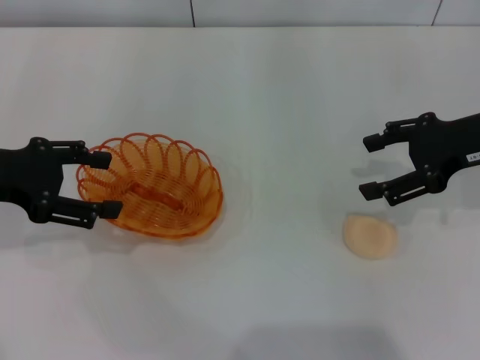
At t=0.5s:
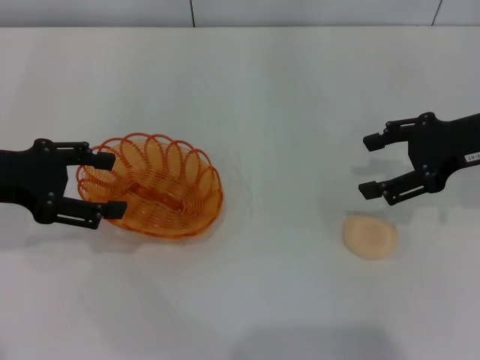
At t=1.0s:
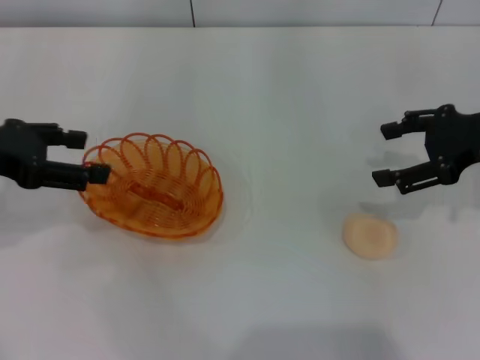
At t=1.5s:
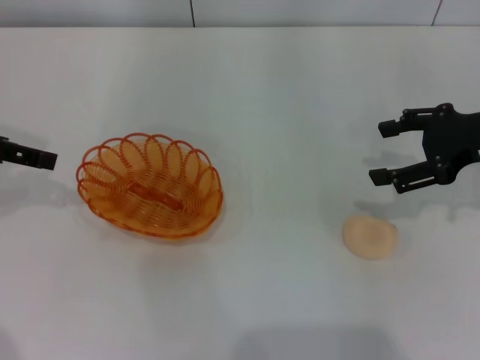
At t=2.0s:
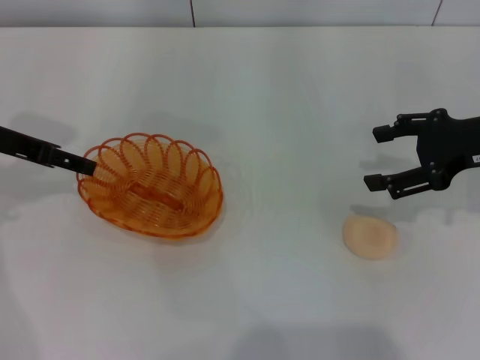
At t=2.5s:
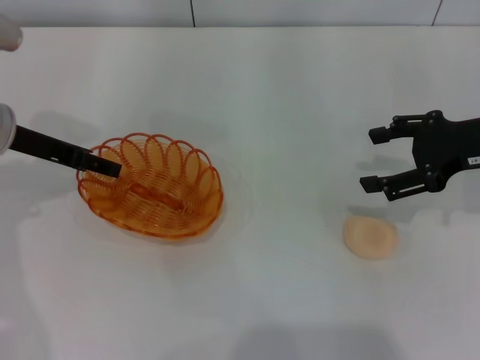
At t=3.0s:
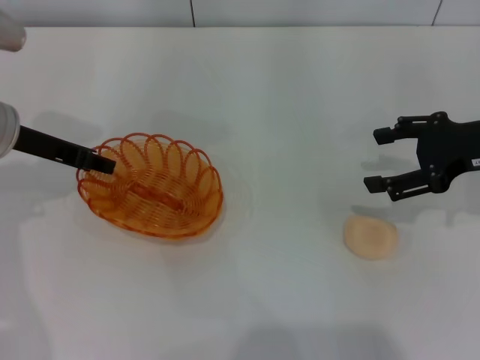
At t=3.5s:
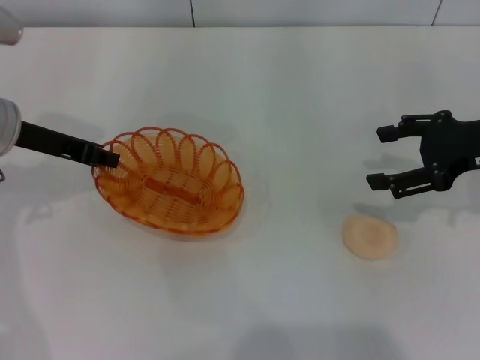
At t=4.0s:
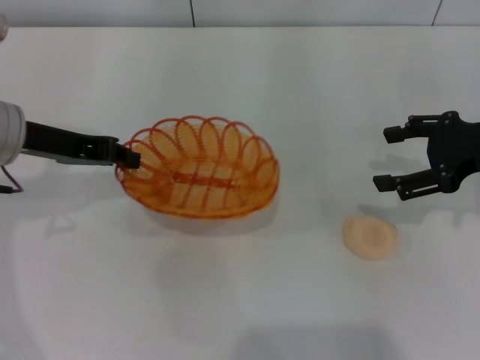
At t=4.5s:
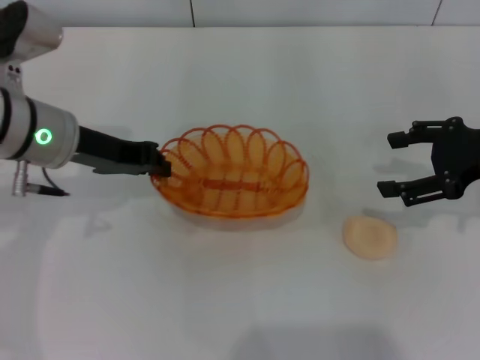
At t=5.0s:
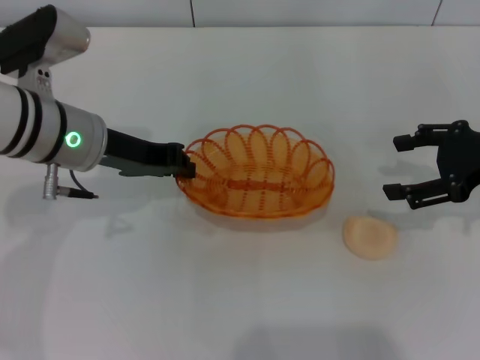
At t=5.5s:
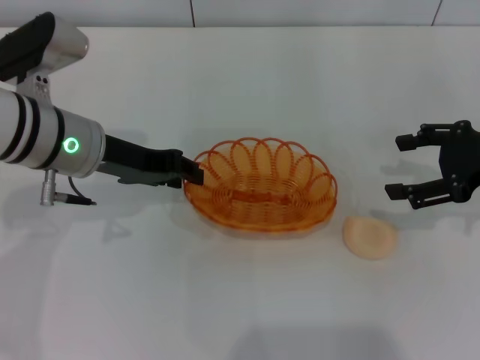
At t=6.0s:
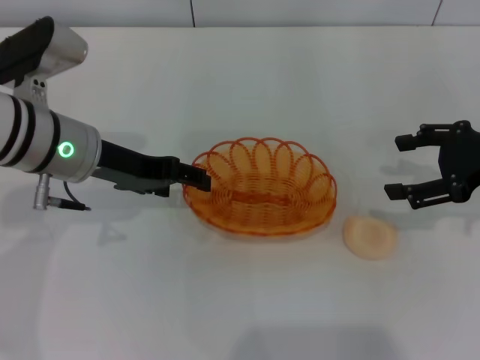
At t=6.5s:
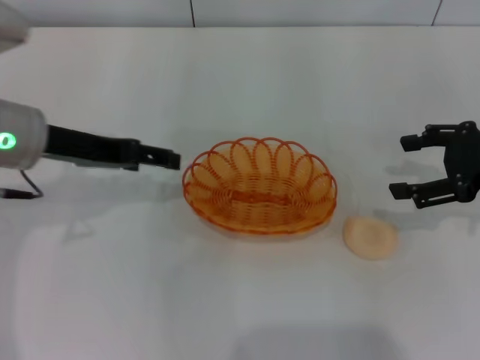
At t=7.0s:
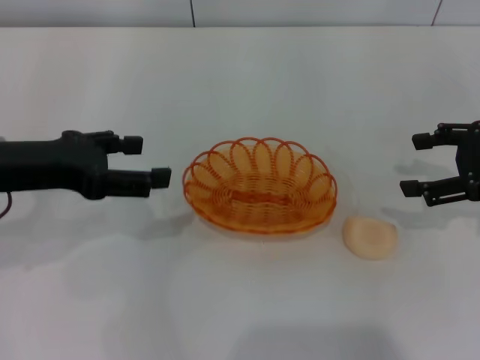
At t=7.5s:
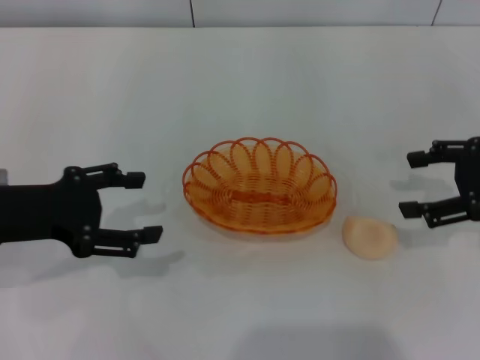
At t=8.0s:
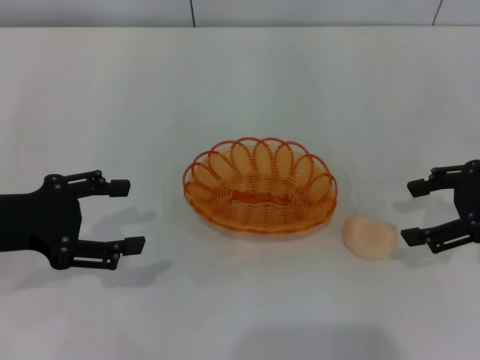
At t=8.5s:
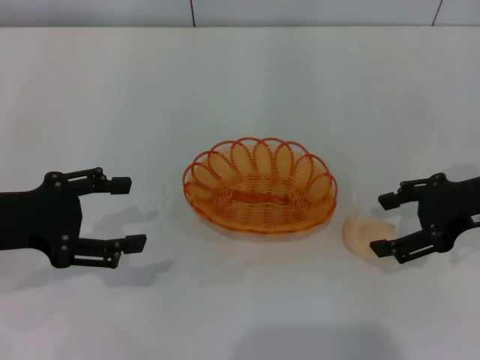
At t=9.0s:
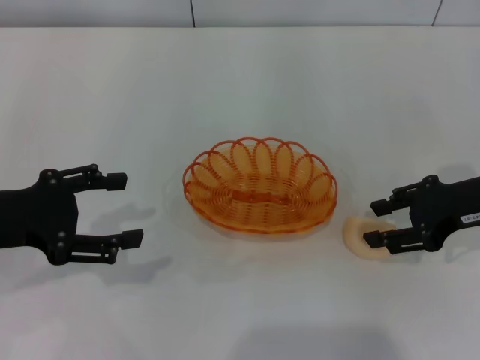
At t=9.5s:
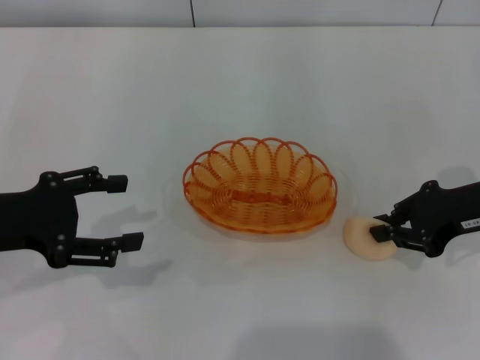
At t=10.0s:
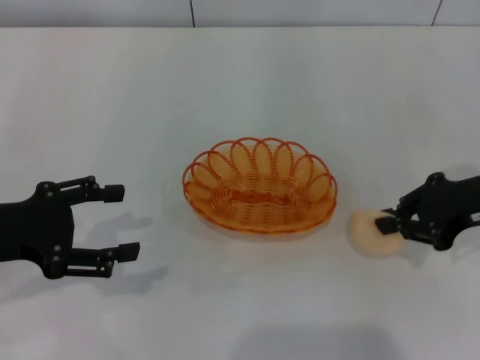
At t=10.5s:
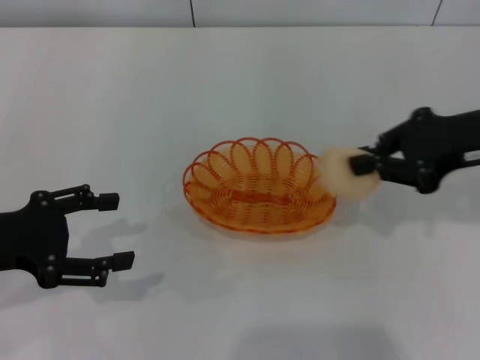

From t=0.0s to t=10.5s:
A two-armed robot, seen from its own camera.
Step, from t=0.0s to t=4.5s: Pick up the basket with the left gripper.
Step, from t=5.0s to t=7.0s: Place the basket in the center of view with the left gripper.
Step, from t=7.5s to t=10.0s: Pick up the egg yolk pastry with the right gripper.
From t=0.0s to t=2.0s: The left gripper travels forward by some 5 cm.
From t=2.0s to t=4.0s: The left gripper closes its fingers.
From t=4.0s to t=6.5s: The left gripper opens up.
From t=6.5s to t=8.5s: The left gripper shifts some 10 cm backward and to the left.
From t=8.5s to t=10.5s: The right gripper heads upward, covering about 5 cm, and closes.

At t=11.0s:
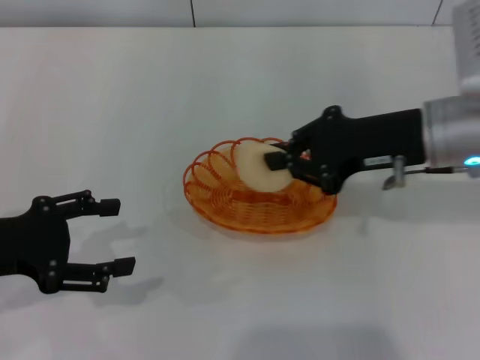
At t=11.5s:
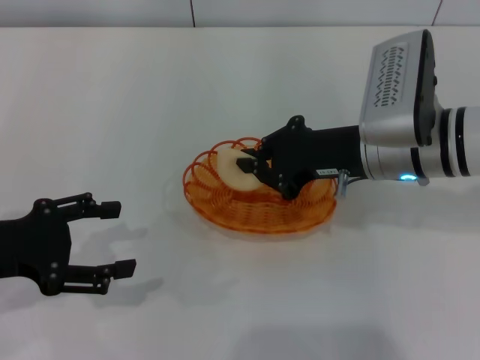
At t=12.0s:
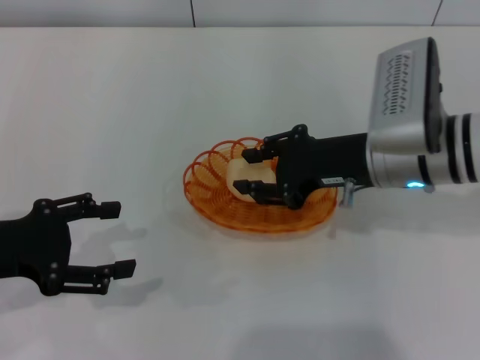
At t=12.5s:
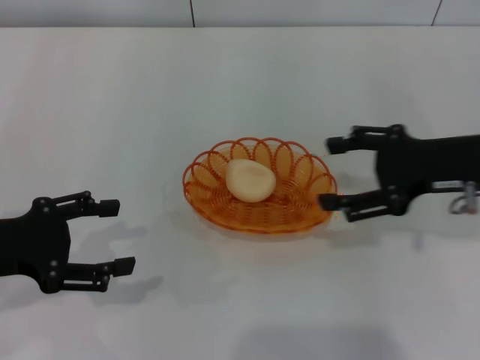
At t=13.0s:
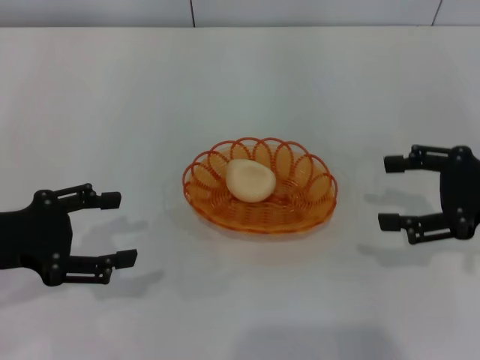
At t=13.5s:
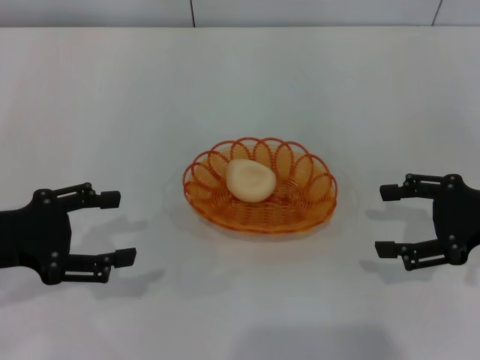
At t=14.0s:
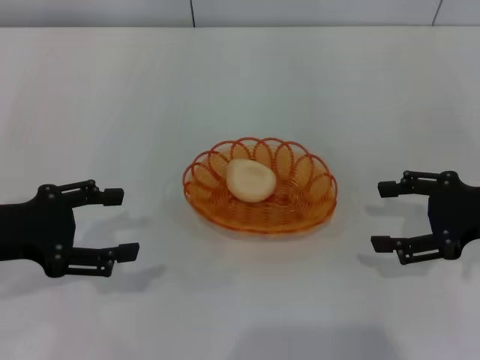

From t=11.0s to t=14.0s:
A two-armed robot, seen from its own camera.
Step, from t=11.0s to t=12.0s: Place the egg yolk pastry into the basket with the right gripper.
From t=11.0s to t=12.5s: The right gripper goes approximately 5 cm to the right, and opens up.
From t=12.5s to t=14.0s: The right gripper moves to the right, approximately 5 cm.

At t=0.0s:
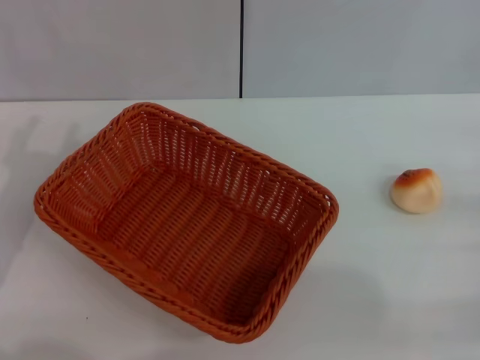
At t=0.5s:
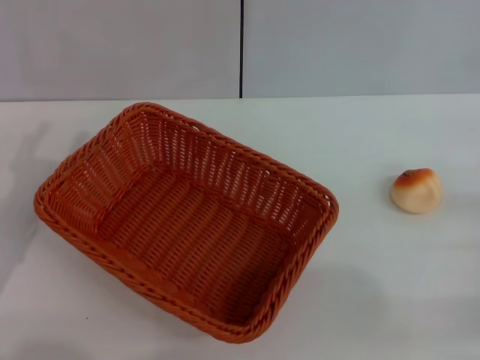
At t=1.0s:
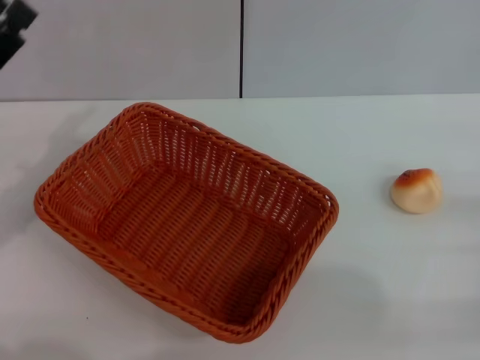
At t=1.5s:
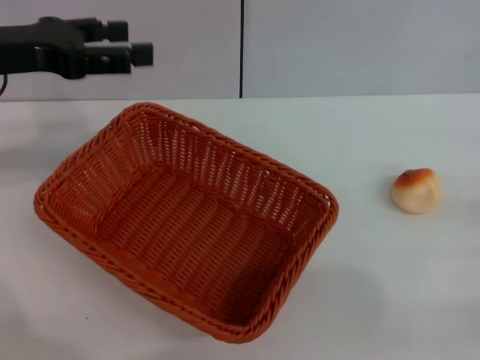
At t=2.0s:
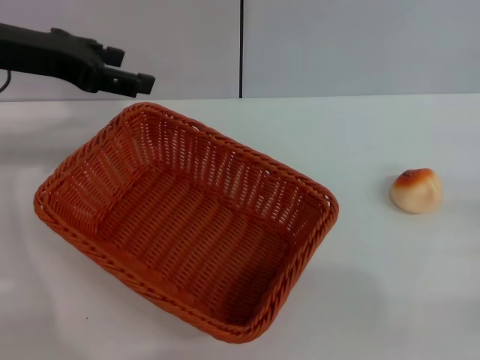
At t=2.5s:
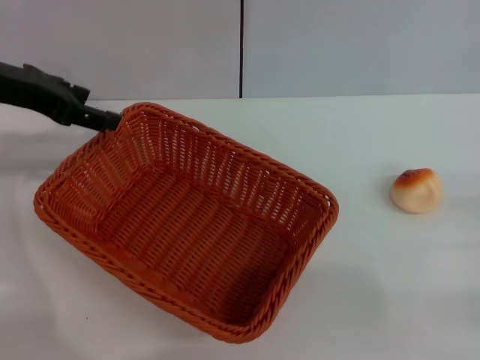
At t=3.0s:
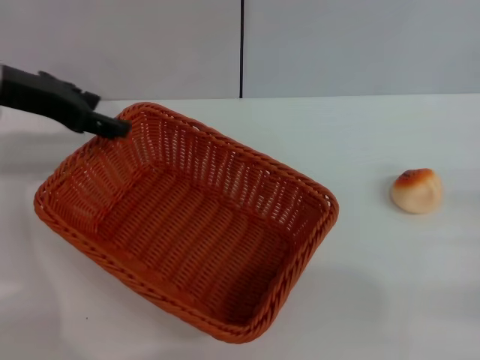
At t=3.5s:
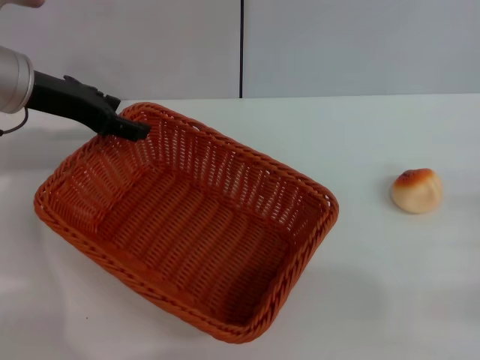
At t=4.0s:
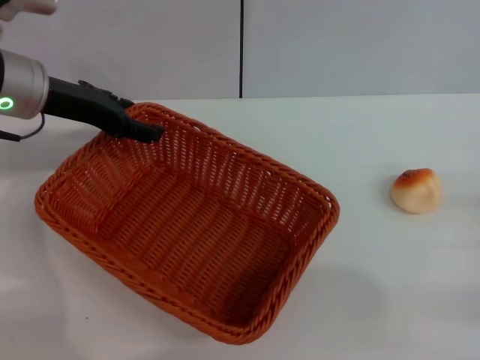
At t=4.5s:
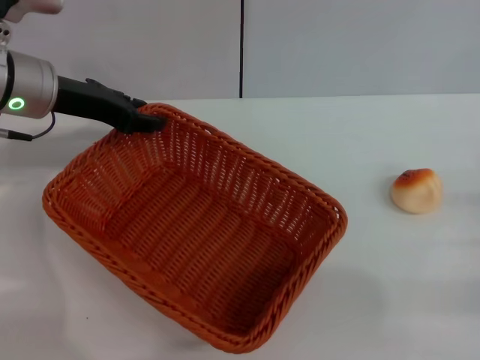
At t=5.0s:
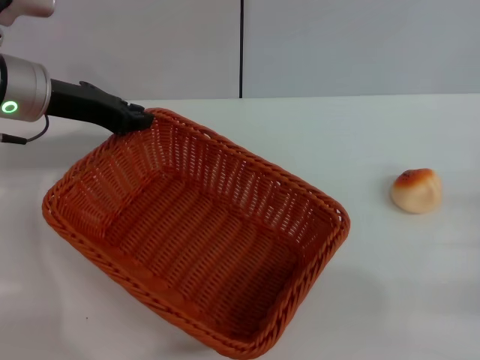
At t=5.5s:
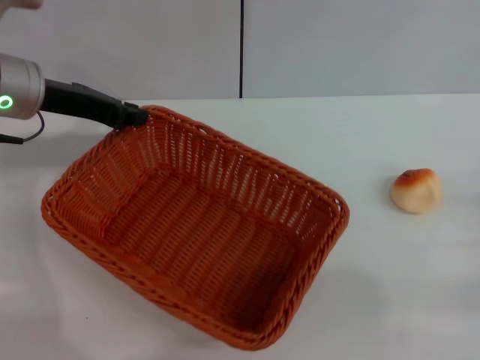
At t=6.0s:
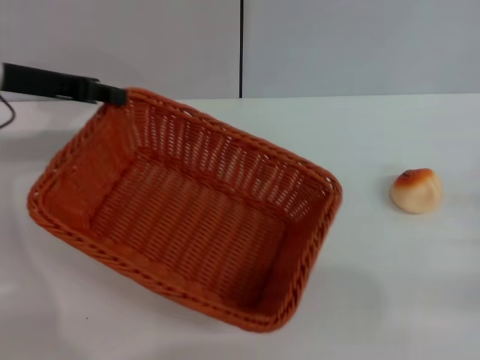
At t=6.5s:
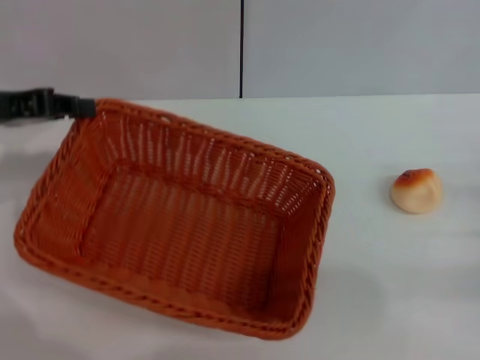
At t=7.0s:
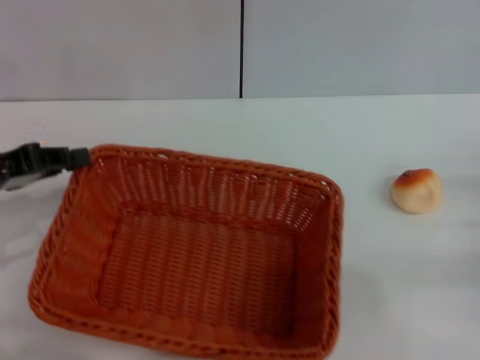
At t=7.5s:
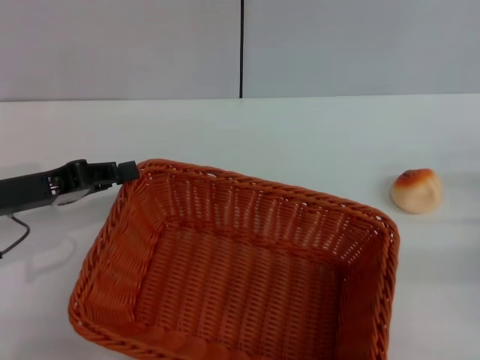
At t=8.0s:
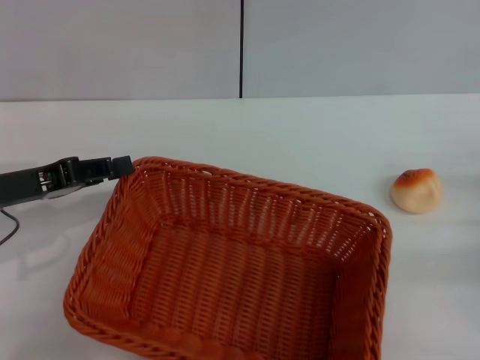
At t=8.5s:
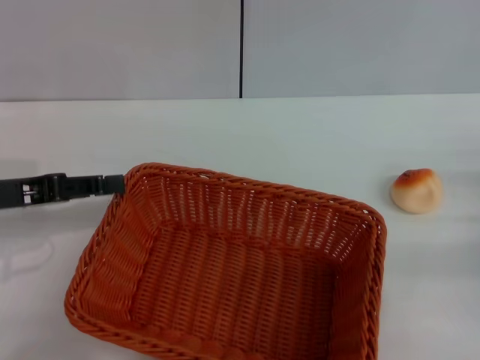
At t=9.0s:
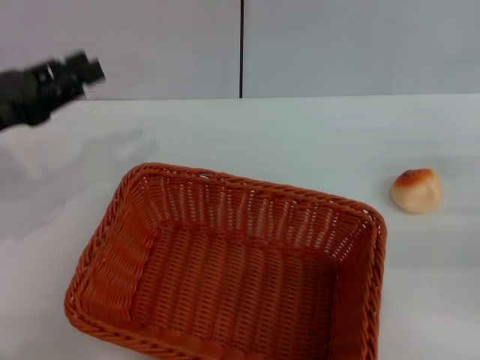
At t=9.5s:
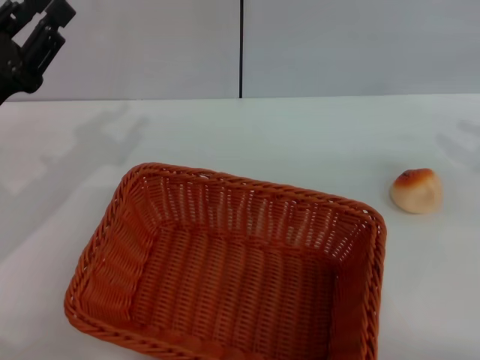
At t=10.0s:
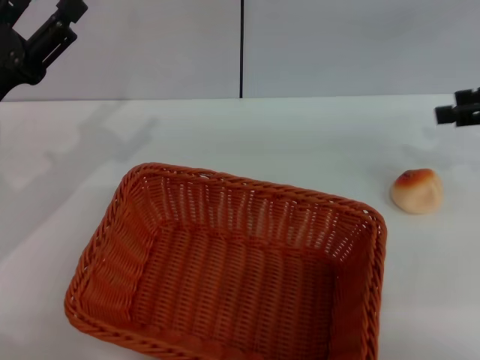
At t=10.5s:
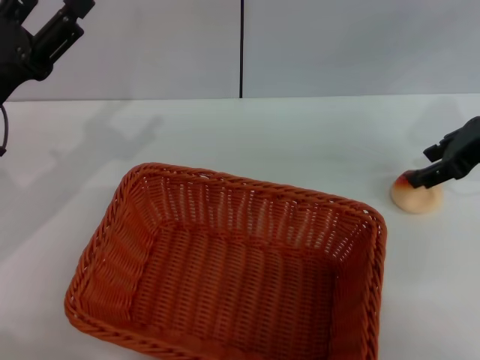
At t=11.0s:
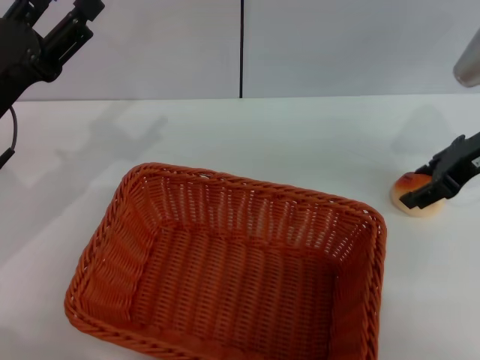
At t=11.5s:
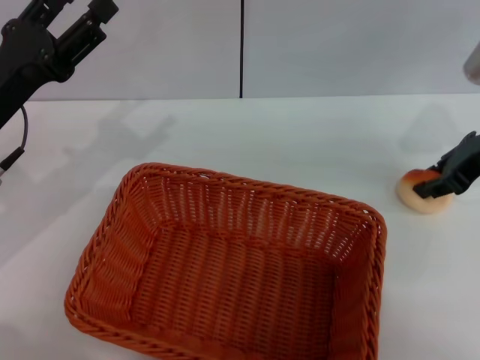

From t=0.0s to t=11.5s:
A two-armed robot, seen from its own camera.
Step, from t=0.0s to t=8.5s: Move the basket to the center of view with the left gripper.
From t=0.0s to t=2.0s: The left gripper moves upward and forward, about 20 cm.
From t=2.0s to t=4.0s: The left gripper shifts approximately 5 cm downward.
From t=4.0s to t=6.0s: The left gripper closes.
From t=6.0s to t=7.5s: The left gripper travels backward and downward by approximately 15 cm.
From t=7.5s to t=9.5s: The right gripper goes some 15 cm upward; the left gripper opens up.
From t=9.5s to t=11.5s: The left gripper opens. Meanwhile the right gripper travels to the left and forward by roughly 15 cm, and closes up.
